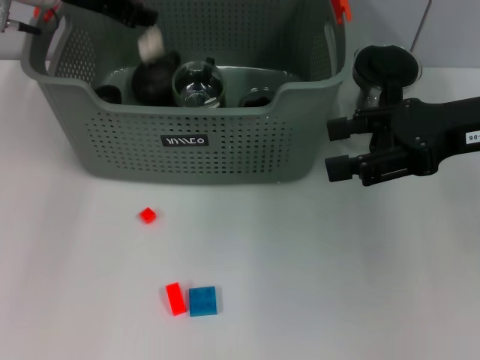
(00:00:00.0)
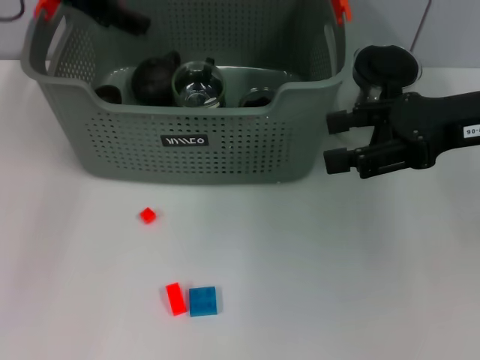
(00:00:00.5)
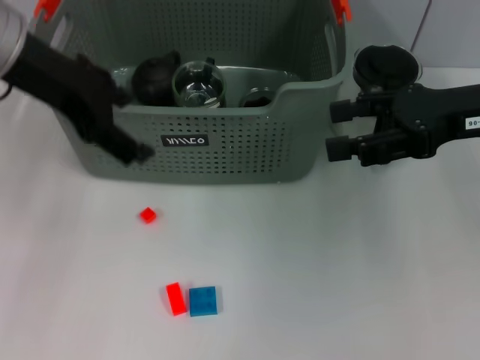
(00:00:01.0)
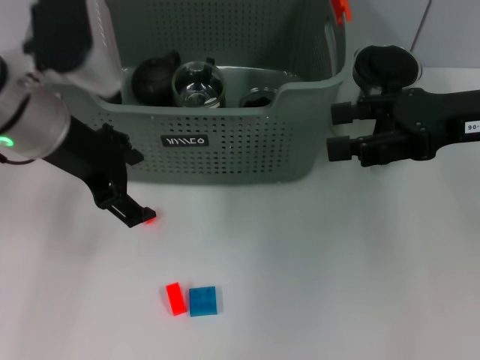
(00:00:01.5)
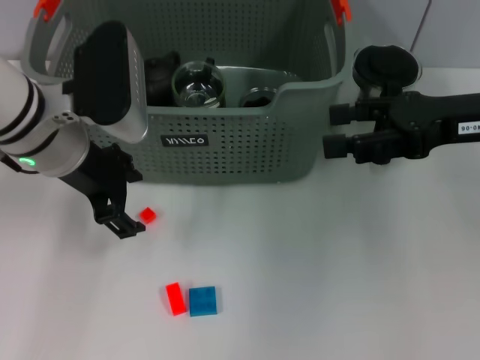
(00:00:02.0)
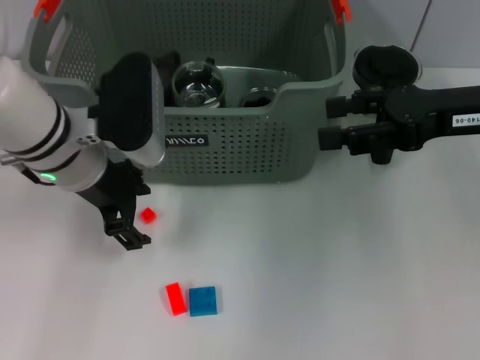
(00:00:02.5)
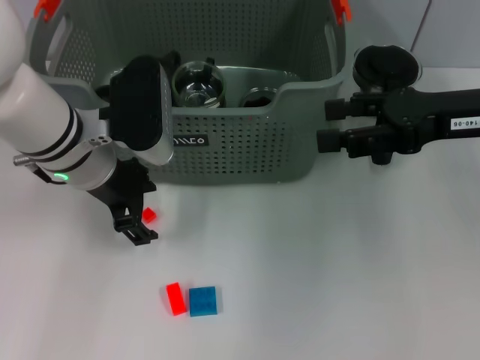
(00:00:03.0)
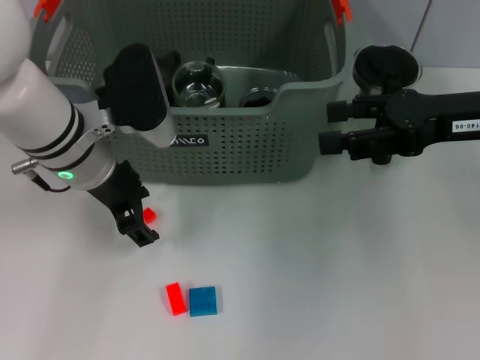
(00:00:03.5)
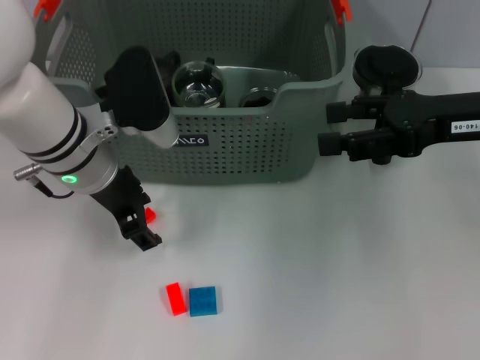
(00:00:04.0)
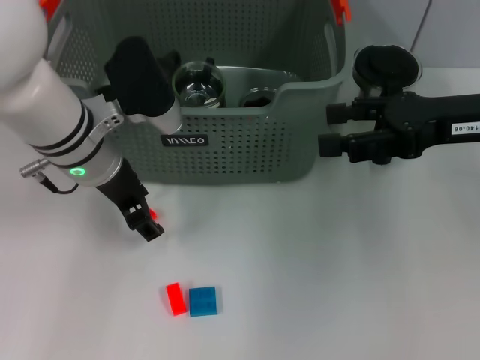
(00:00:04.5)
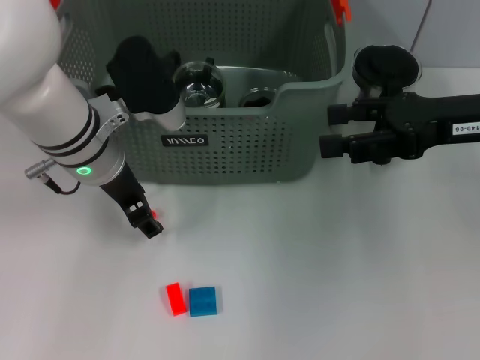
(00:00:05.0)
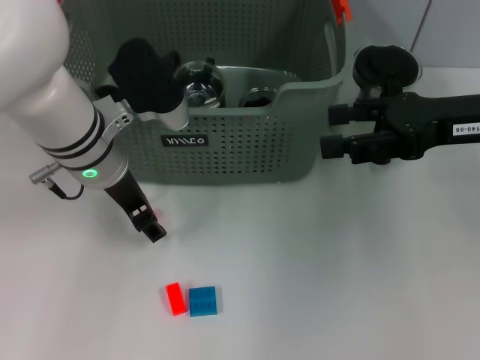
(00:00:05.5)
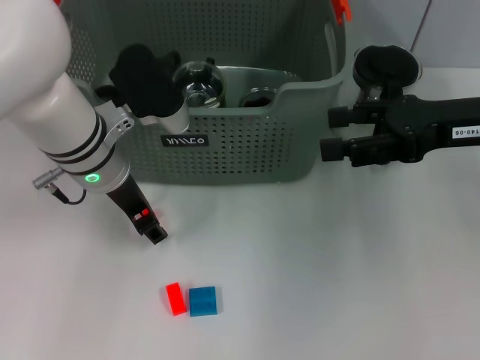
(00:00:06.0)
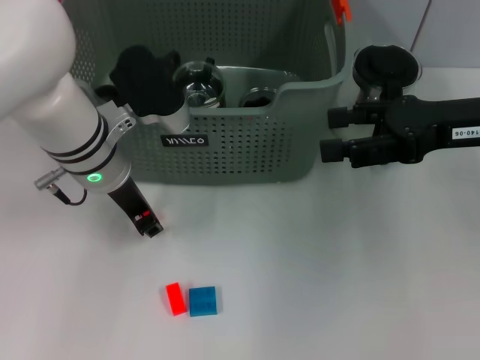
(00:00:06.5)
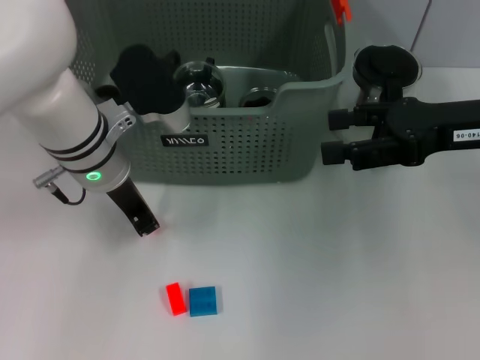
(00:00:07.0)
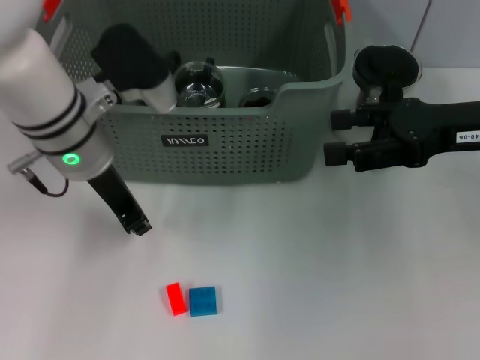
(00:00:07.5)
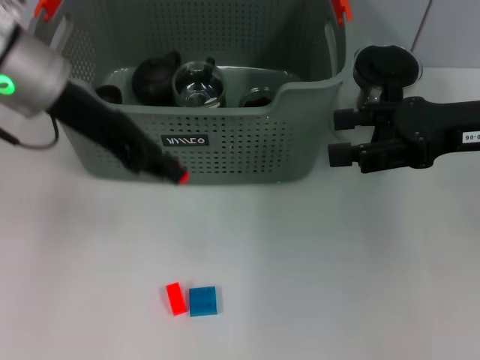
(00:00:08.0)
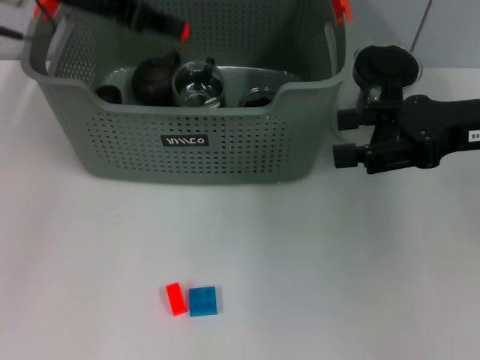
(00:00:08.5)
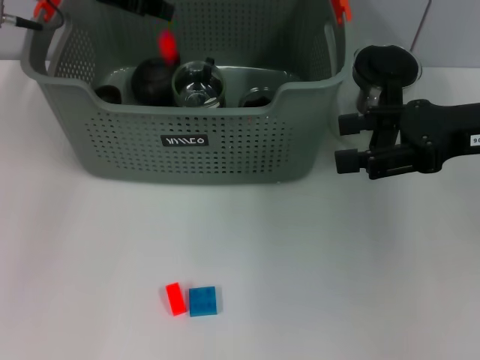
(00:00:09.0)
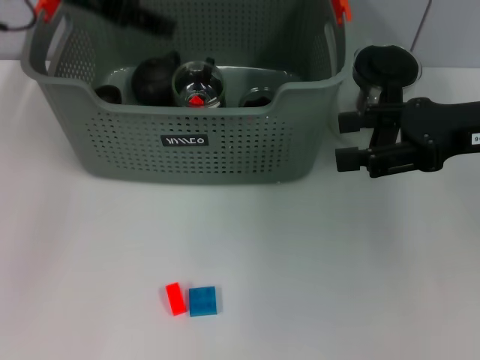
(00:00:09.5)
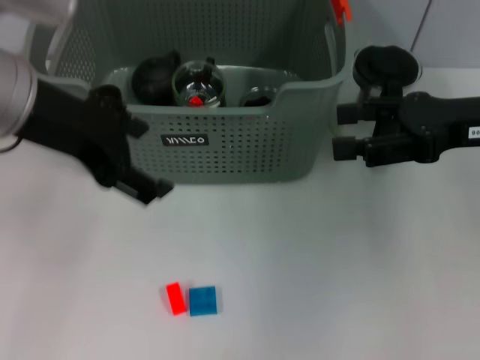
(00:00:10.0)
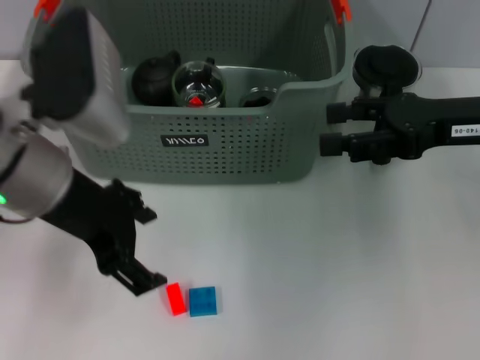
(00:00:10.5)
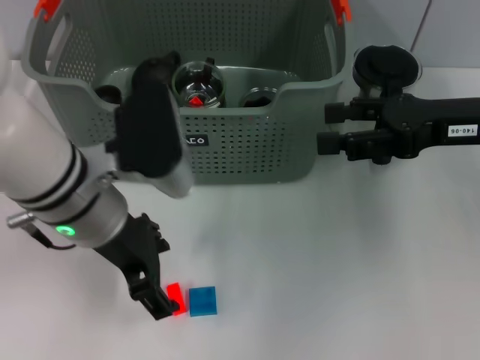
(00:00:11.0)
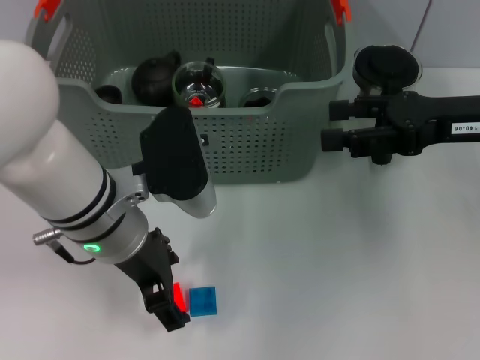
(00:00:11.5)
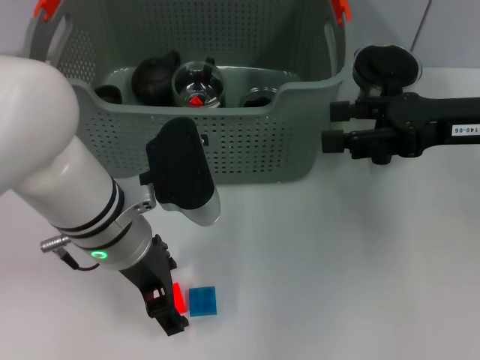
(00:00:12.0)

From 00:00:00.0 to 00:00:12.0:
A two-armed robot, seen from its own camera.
Task of the whole recording: pick up the teacup on the table and place it into the storage bin, pick up the block on the table and place it into the storage bin.
Step, from 00:00:00.5 to 00:00:07.0: Grasp the orange block with left gripper.
Step, from 00:00:08.0 to 00:00:09.0: Place the orange block in the storage box with left gripper.
From 00:00:00.0 to 00:00:02.0: The left gripper shifts roughly 15 cm backward and downward, and opens up.
From 00:00:02.0 to 00:00:04.0: There are only small adjustments of the grippers.
From 00:00:04.0 to 00:00:06.0: The grippers make only small movements.
From 00:00:06.0 to 00:00:08.0: The left gripper travels upward by roughly 10 cm, and closes.
From 00:00:08.0 to 00:00:10.0: The left gripper goes roughly 5 cm backward, and opens up.
From 00:00:10.0 to 00:00:12.0: The left gripper is displaced downward and to the right by roughly 15 cm.

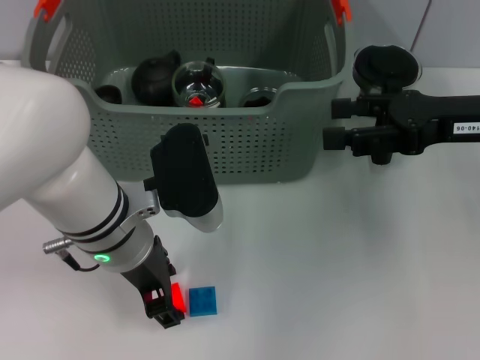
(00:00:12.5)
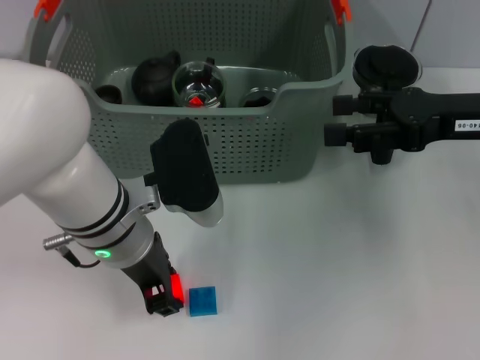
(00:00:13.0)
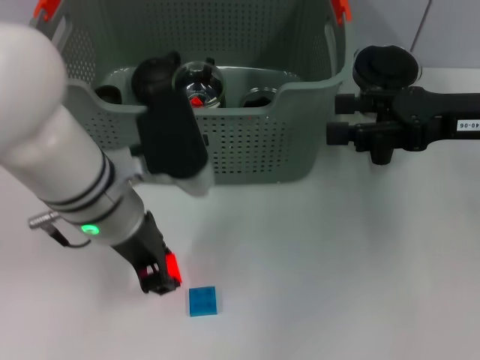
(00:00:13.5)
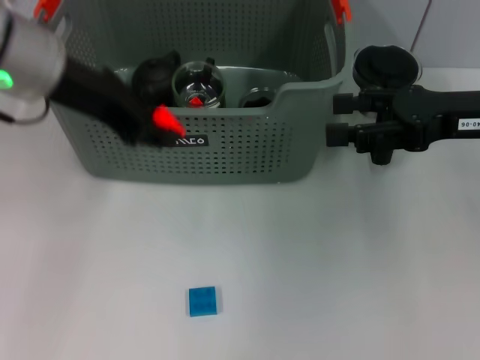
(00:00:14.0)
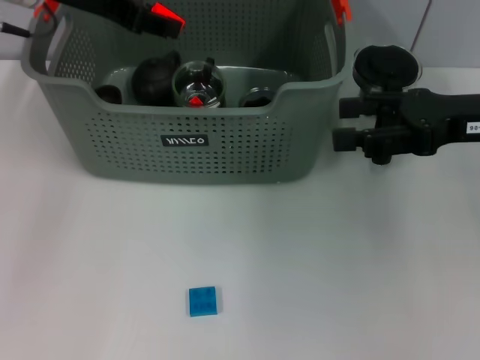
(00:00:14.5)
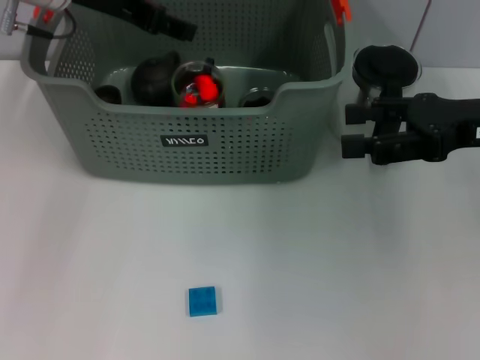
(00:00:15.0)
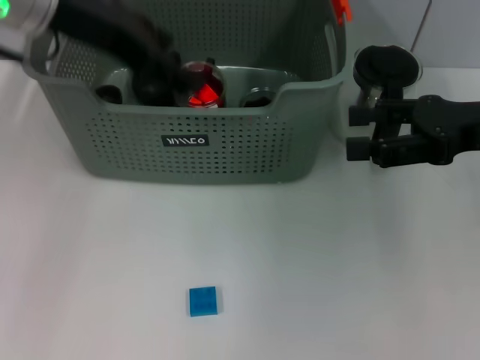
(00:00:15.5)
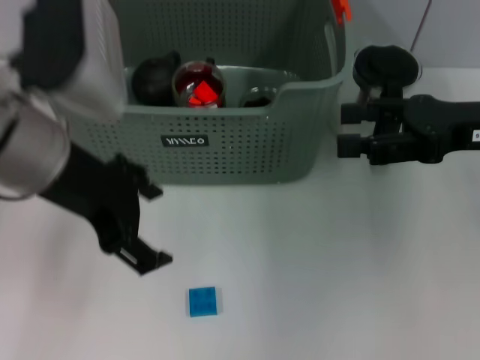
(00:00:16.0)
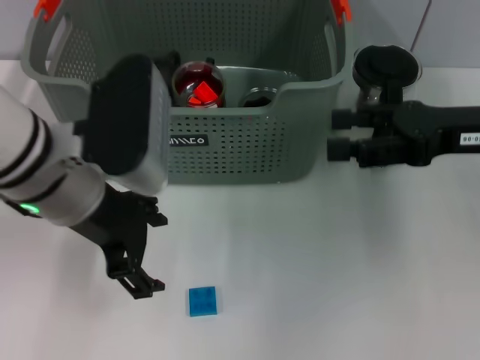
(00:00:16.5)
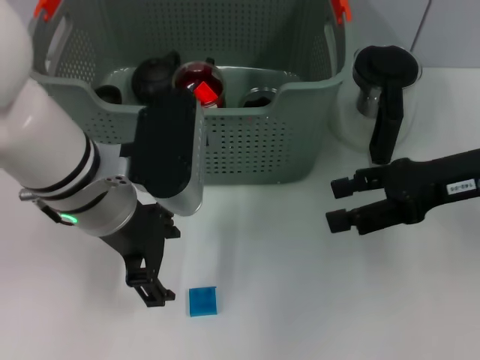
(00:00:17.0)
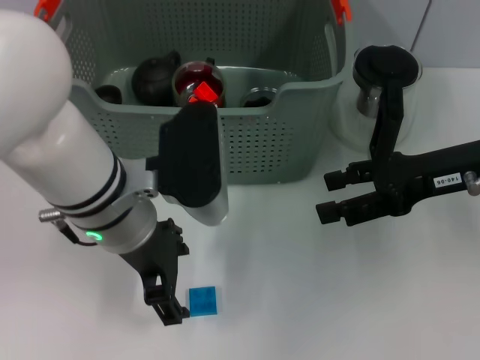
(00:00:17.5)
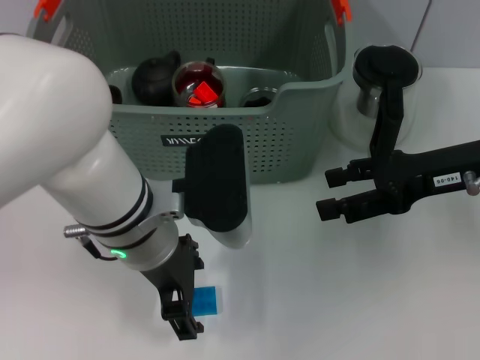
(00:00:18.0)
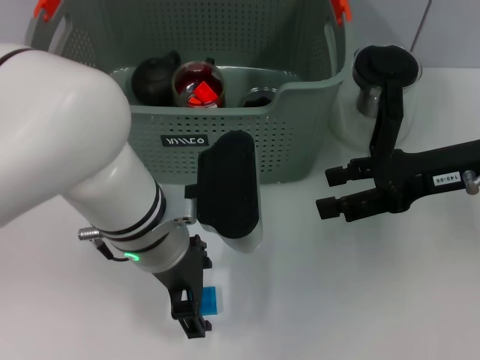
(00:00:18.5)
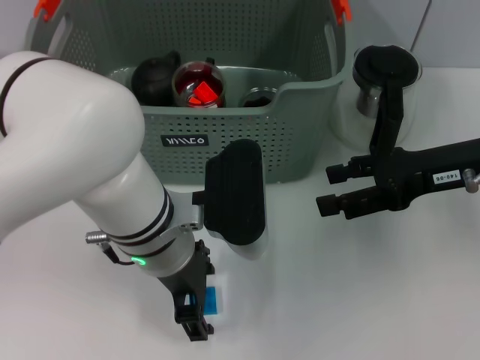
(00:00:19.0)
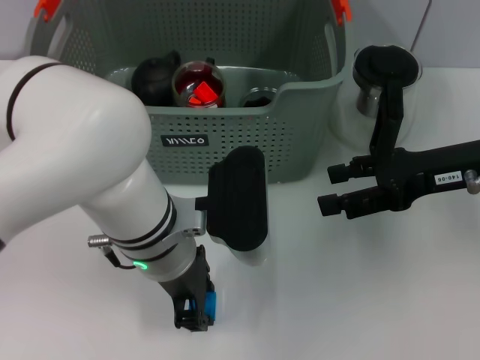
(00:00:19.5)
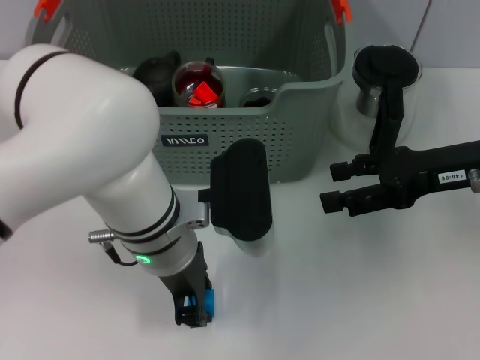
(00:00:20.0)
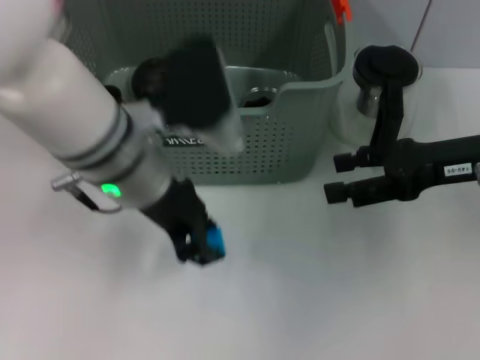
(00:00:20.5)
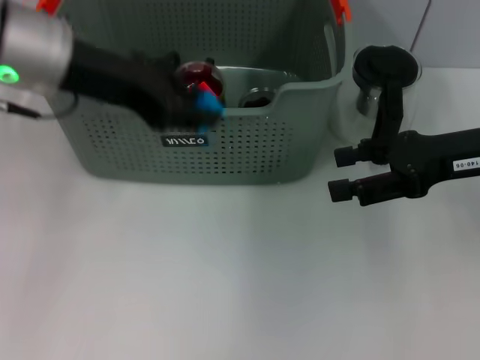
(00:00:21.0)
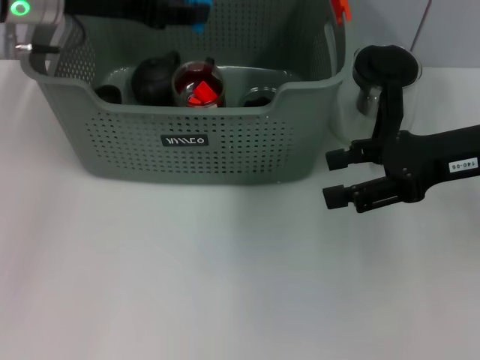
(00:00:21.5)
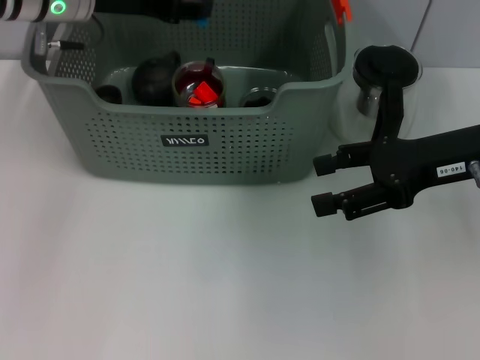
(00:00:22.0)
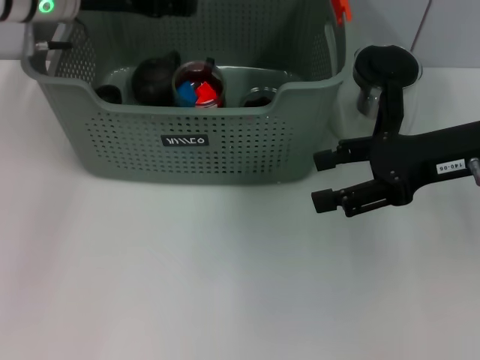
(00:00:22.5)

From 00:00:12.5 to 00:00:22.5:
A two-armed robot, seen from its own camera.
Task of the whole recording: pick up the teacup on the table and place it into the storage bin, pick up the block on the table and place it into the storage bin.
Step, from 00:00:14.0 to 00:00:15.0: Place the orange block in the storage box with left gripper.
Step, from 00:00:15.5 to 00:00:20.0: Grasp the dark blue block with left gripper.
From 00:00:12.5 to 00:00:14.5: The left gripper travels upward, forward and to the left by approximately 20 cm.
From 00:00:14.5 to 00:00:16.5: The left gripper travels backward, downward and to the right by some 15 cm, and opens up.
From 00:00:16.5 to 00:00:18.5: The left gripper heads to the right and downward, covering approximately 10 cm.
From 00:00:18.5 to 00:00:20.5: The left gripper goes some 5 cm upward, and closes up.
From 00:00:20.5 to 00:00:22.5: The left gripper heads forward and to the left, covering about 15 cm.

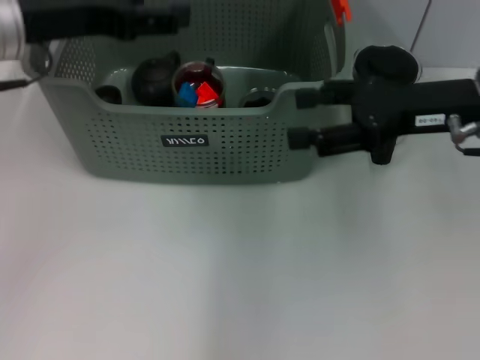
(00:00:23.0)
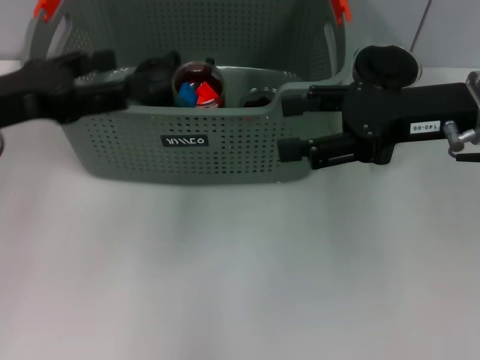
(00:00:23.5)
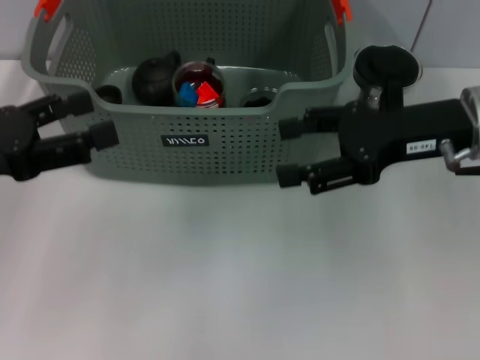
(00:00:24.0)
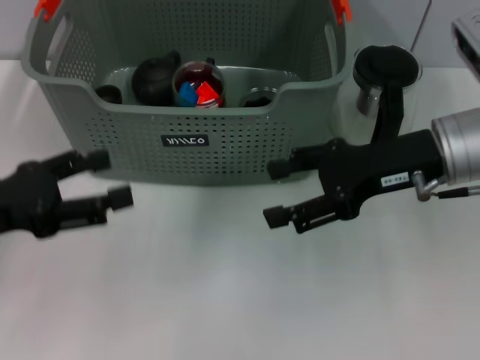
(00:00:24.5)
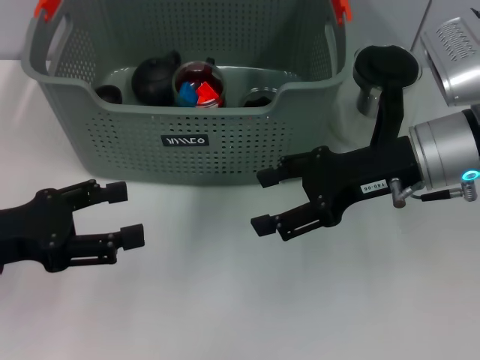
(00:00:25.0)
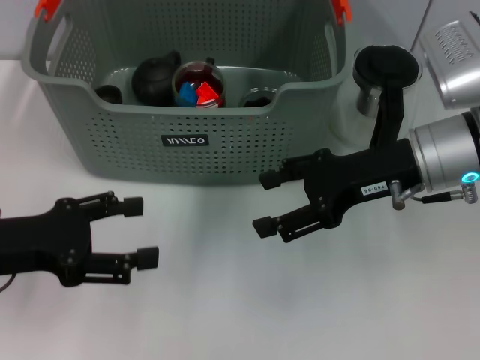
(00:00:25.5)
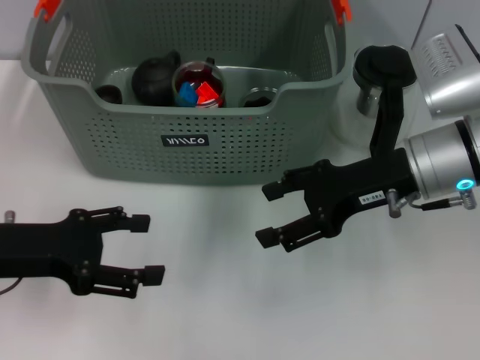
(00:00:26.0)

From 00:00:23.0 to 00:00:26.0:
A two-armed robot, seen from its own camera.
Task of the whole recording: pick up the teacup on the table and place it into the storage bin, pick up the block on the table and place it into the storage bin.
From 00:00:23.0 to 00:00:24.5: The left gripper travels backward, downward and to the left by about 15 cm.
From 00:00:24.5 to 00:00:26.0: The grippers move only a little.
